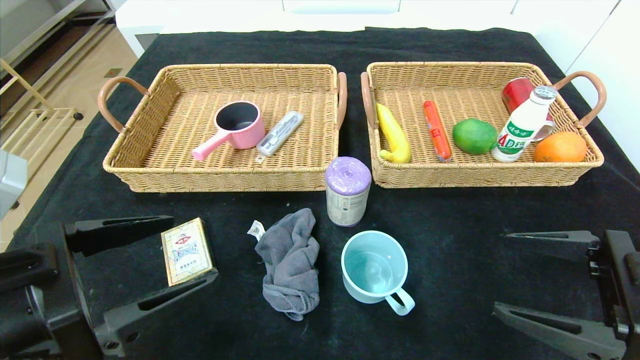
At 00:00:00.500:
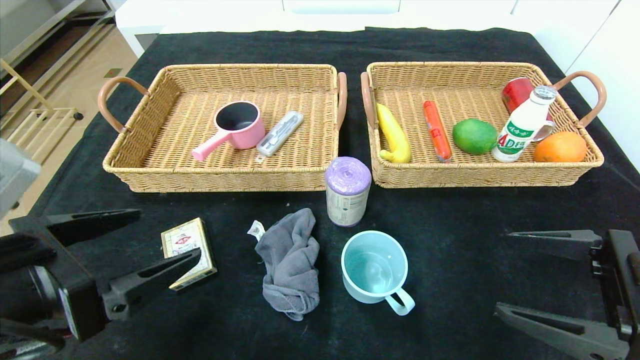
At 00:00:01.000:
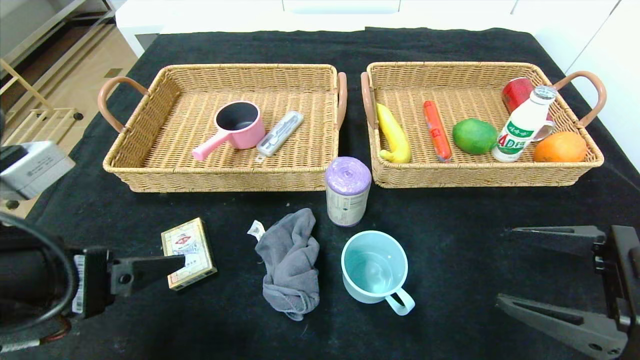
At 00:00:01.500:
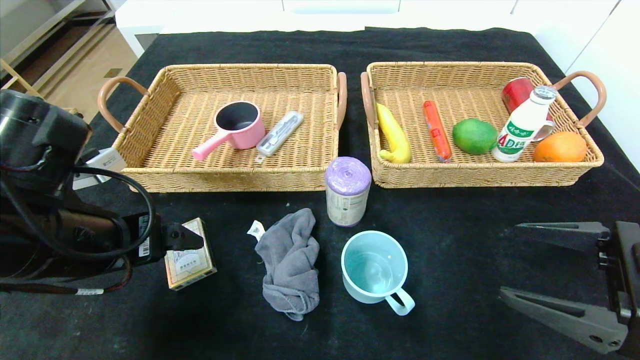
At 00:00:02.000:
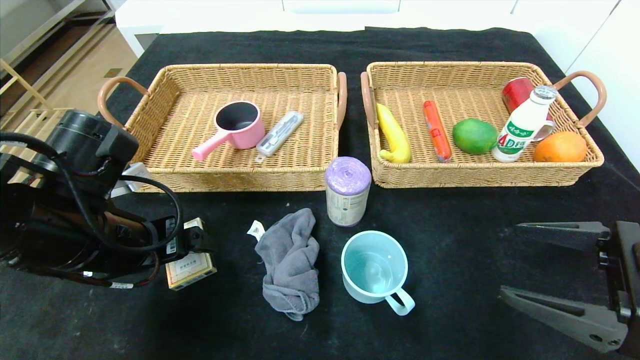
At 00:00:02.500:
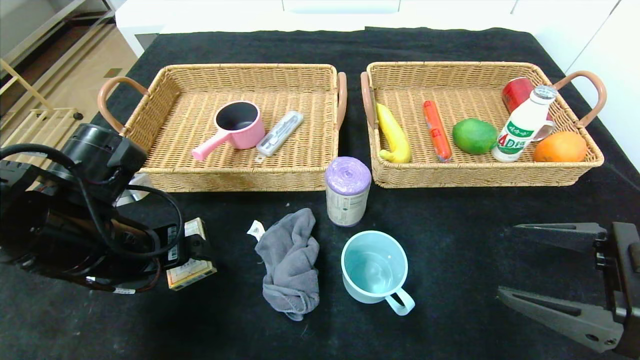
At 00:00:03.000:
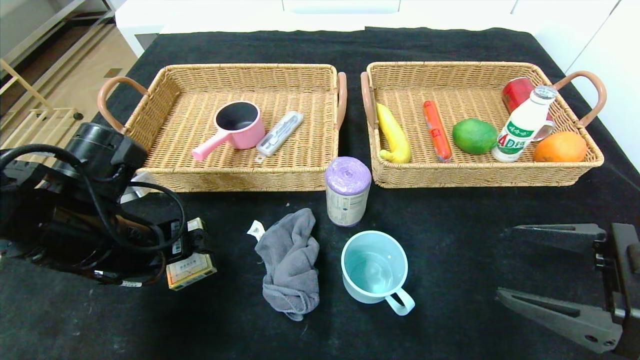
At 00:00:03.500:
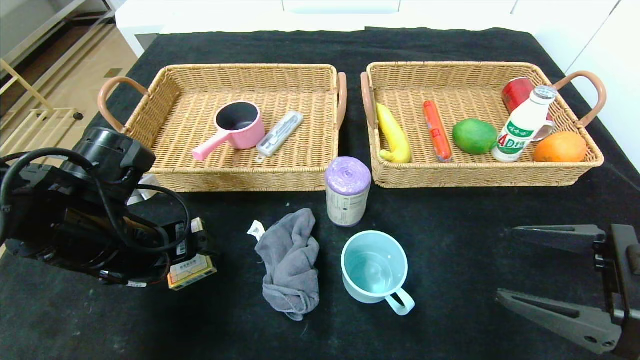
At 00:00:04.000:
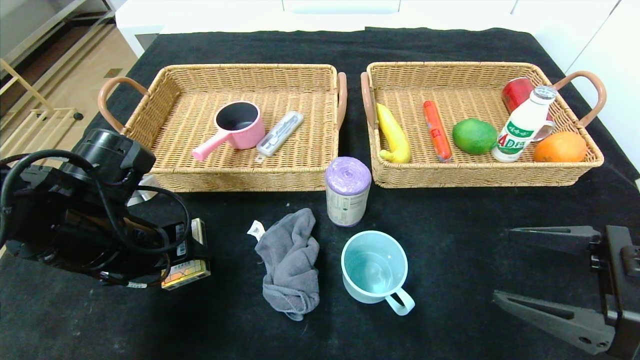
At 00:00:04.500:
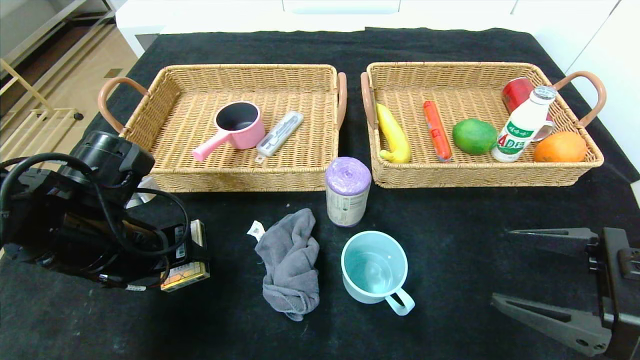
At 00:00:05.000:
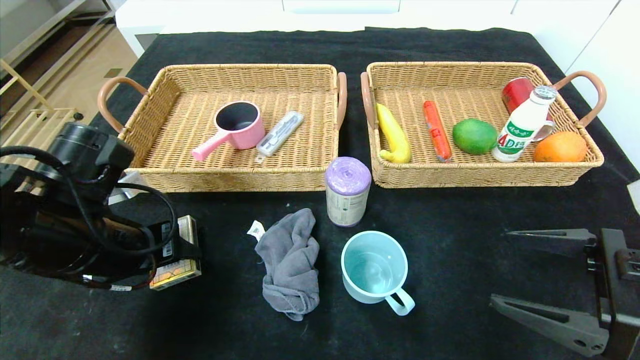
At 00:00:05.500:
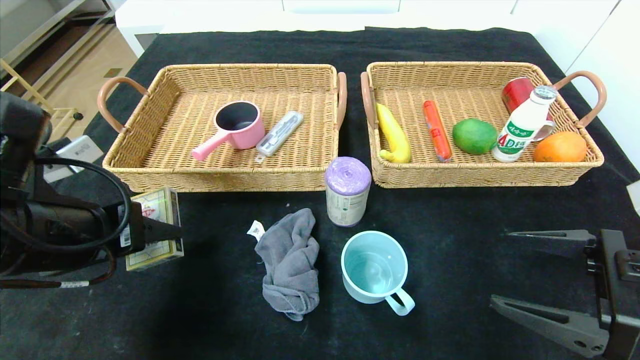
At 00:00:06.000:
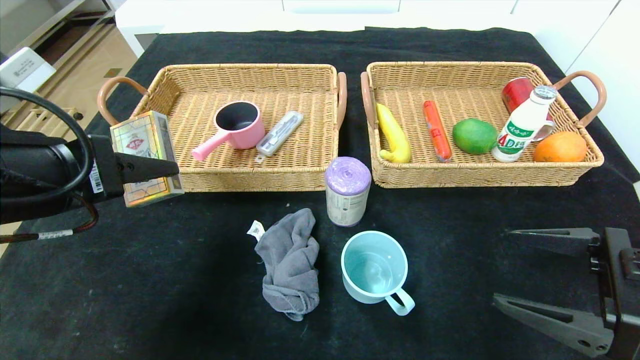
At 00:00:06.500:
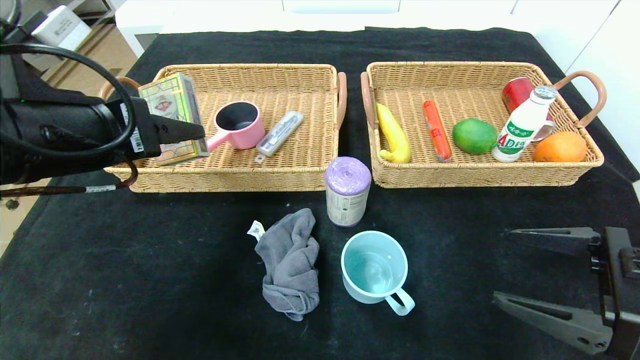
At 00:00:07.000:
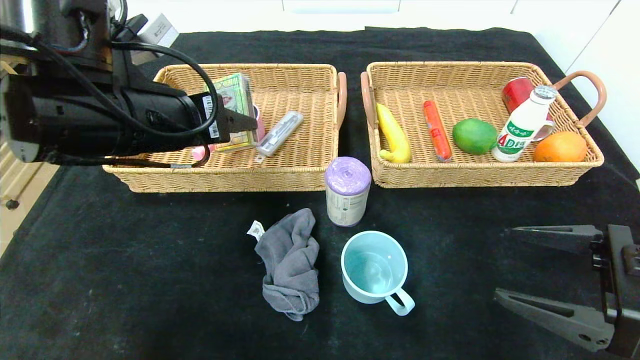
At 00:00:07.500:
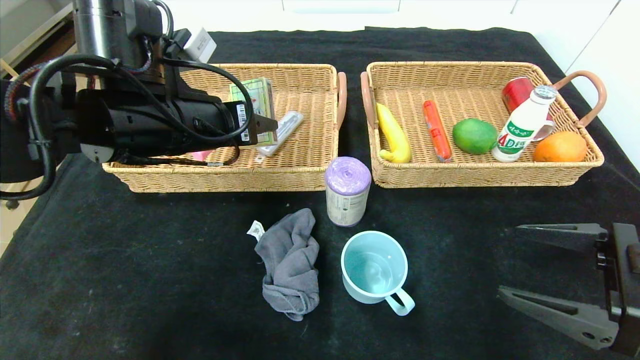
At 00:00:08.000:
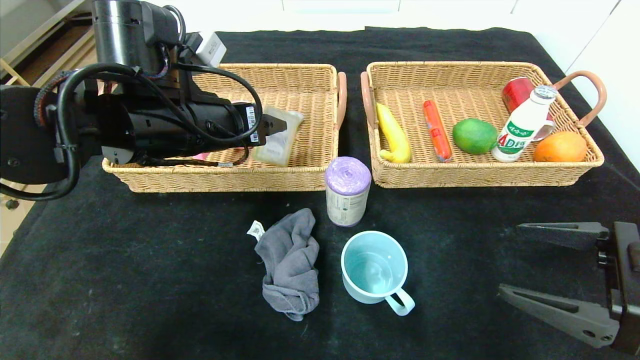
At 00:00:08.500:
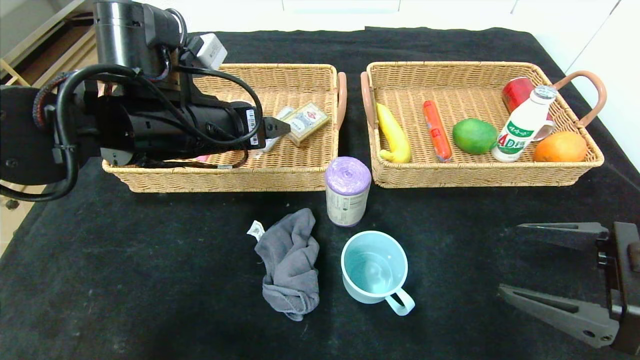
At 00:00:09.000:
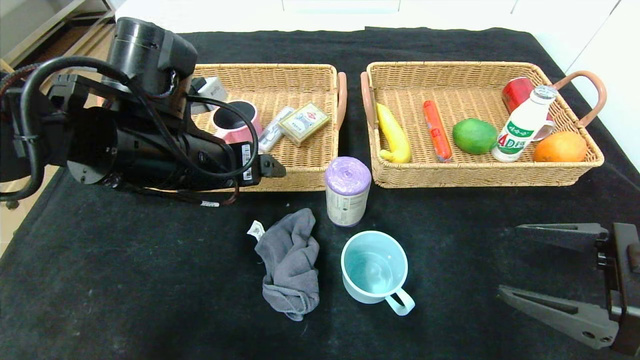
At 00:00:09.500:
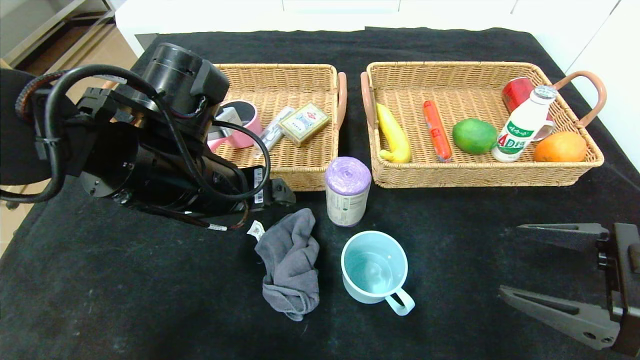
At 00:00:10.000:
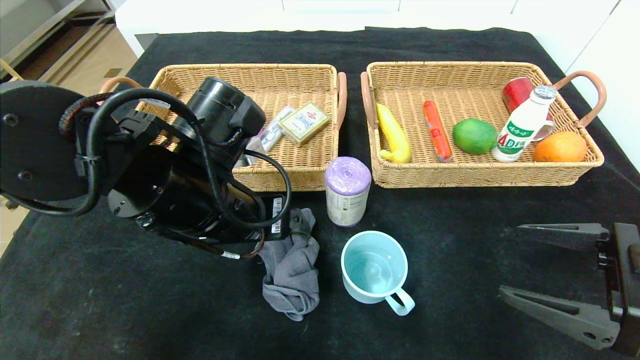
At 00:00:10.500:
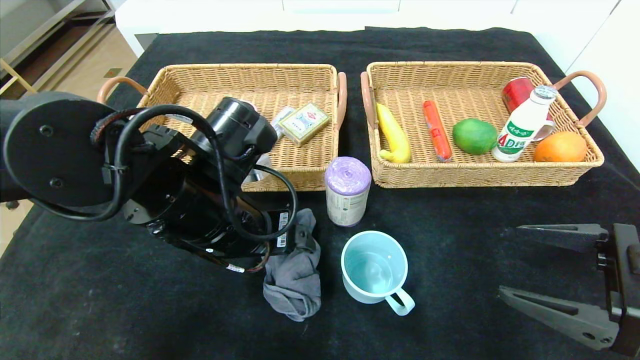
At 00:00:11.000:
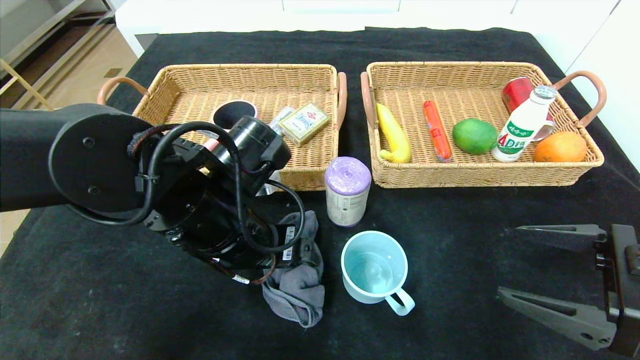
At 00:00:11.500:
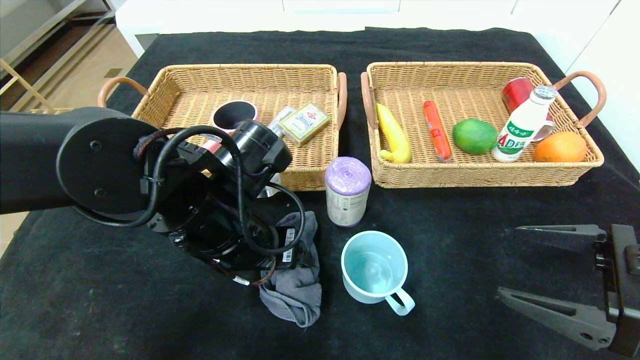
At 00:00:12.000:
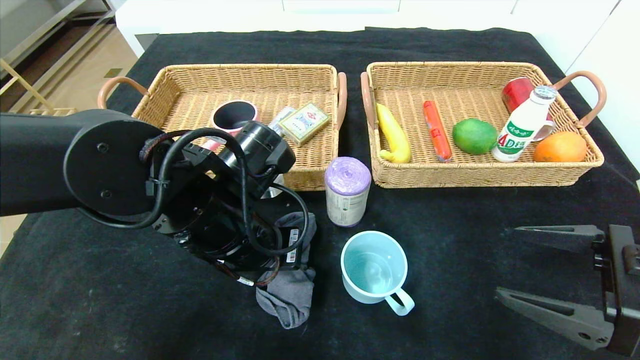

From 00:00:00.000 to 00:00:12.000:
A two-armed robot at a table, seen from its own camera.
Step, from 00:00:00.000 to 00:00:09.500: Pick up the playing cards and put it in the left basket.
From 00:00:00.000 to 00:00:02.000: The left gripper is displaced forward by roughly 10 cm.
From 00:00:02.000 to 00:00:04.000: The left gripper closes its fingers.
From 00:00:04.000 to 00:00:06.000: The left gripper moves upward and backward, some 10 cm.
From 00:00:06.000 to 00:00:08.000: The left gripper travels forward and to the right by roughly 15 cm.
From 00:00:08.000 to 00:00:10.000: The left gripper moves backward and downward, some 5 cm.
From 00:00:10.000 to 00:00:12.000: The left gripper closes.

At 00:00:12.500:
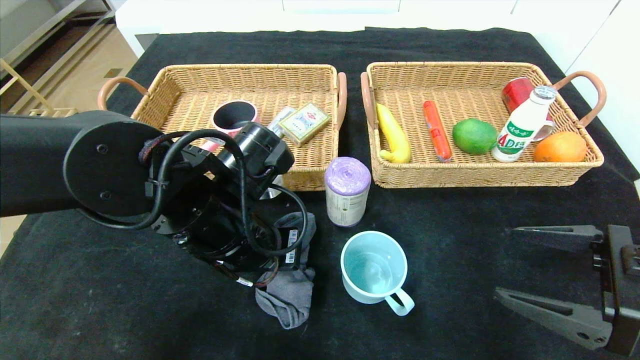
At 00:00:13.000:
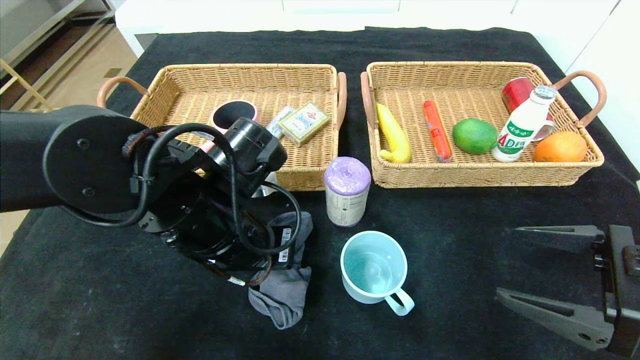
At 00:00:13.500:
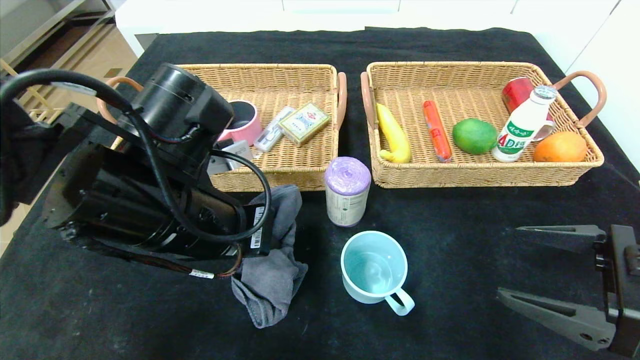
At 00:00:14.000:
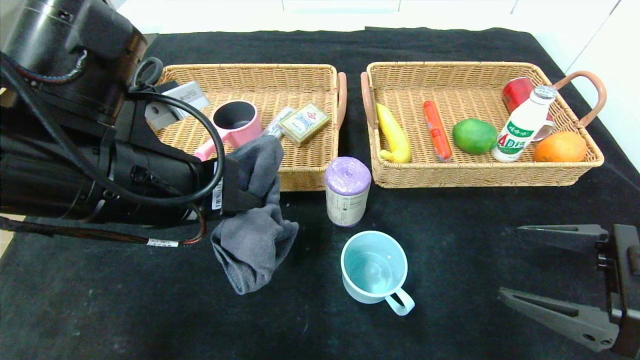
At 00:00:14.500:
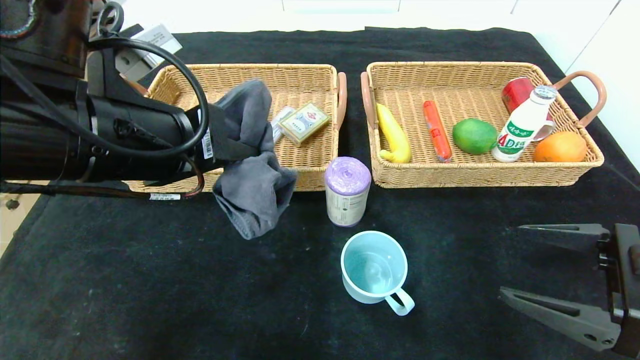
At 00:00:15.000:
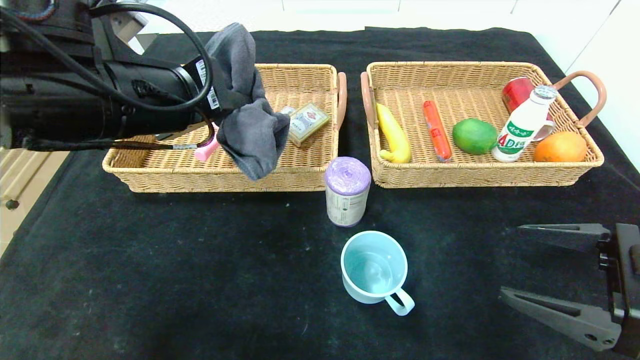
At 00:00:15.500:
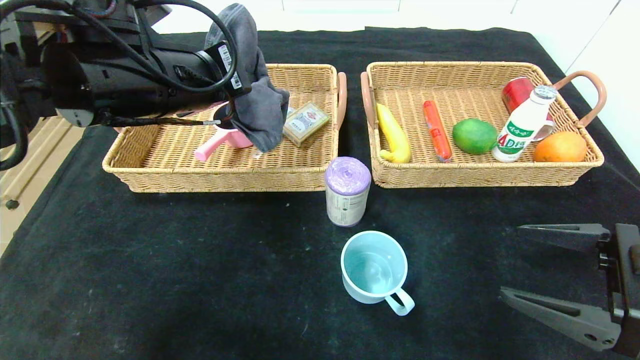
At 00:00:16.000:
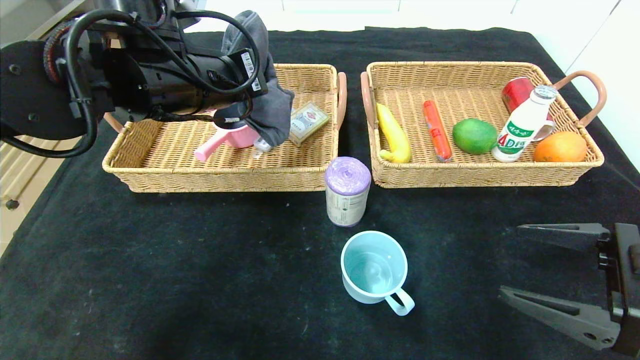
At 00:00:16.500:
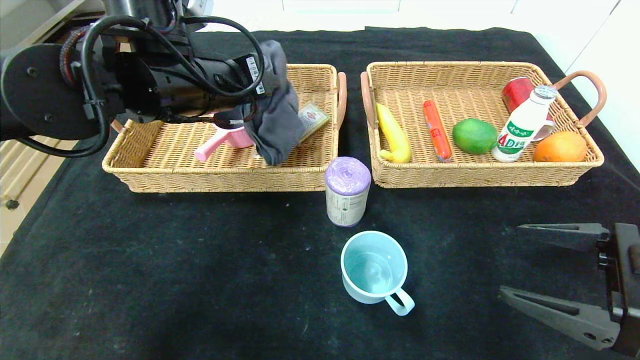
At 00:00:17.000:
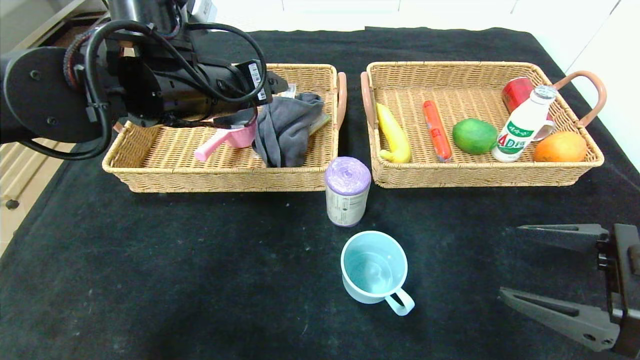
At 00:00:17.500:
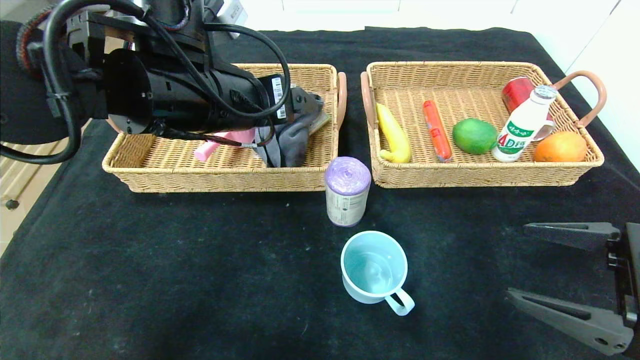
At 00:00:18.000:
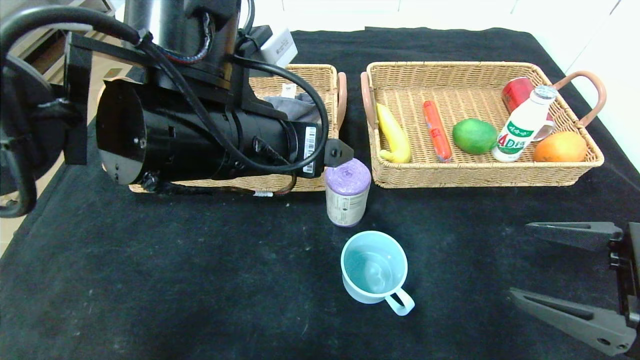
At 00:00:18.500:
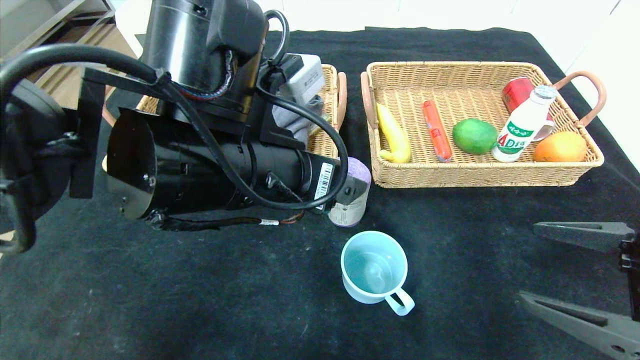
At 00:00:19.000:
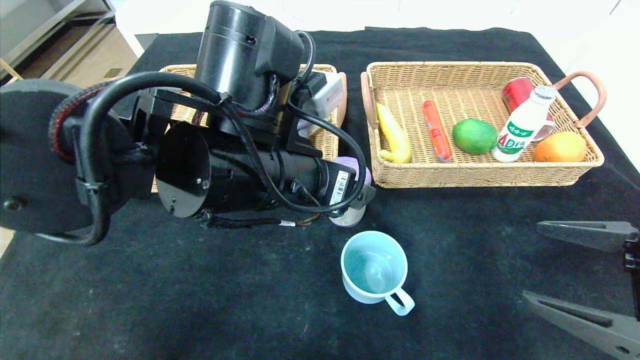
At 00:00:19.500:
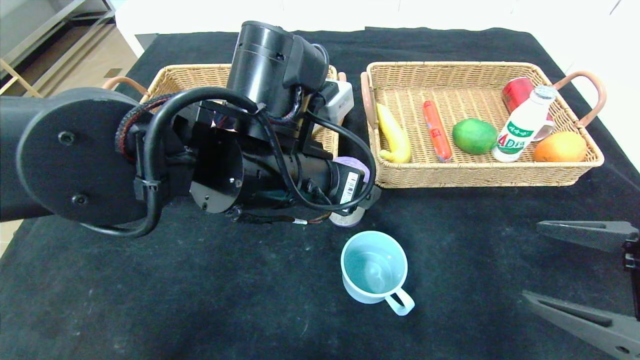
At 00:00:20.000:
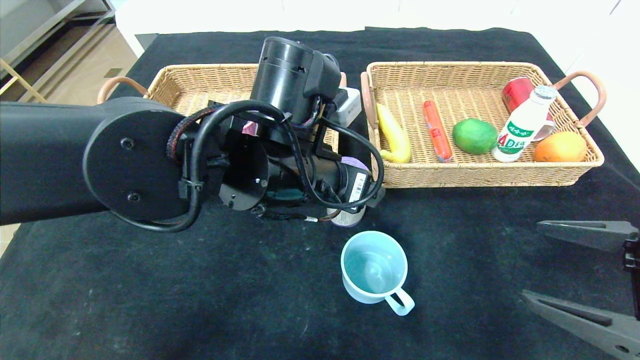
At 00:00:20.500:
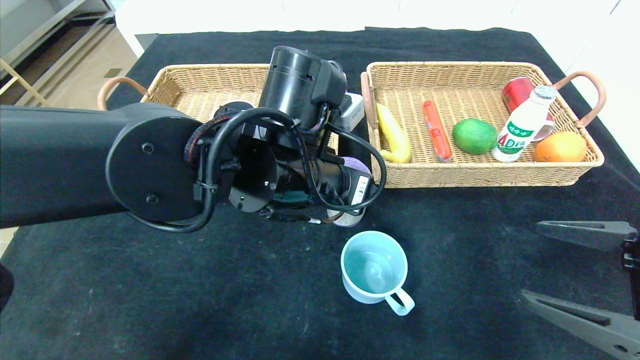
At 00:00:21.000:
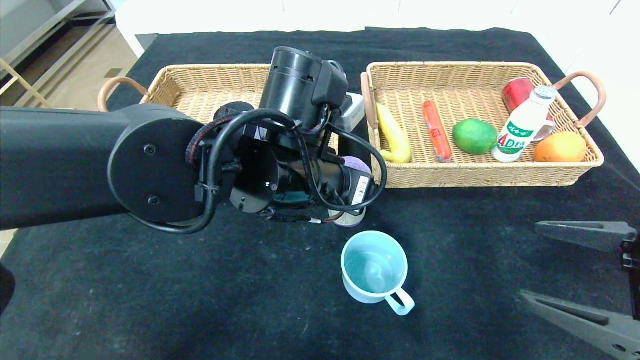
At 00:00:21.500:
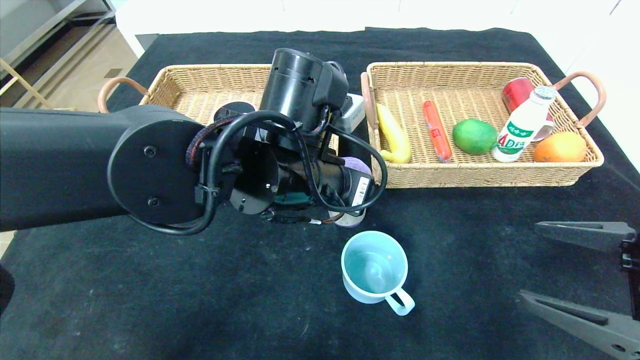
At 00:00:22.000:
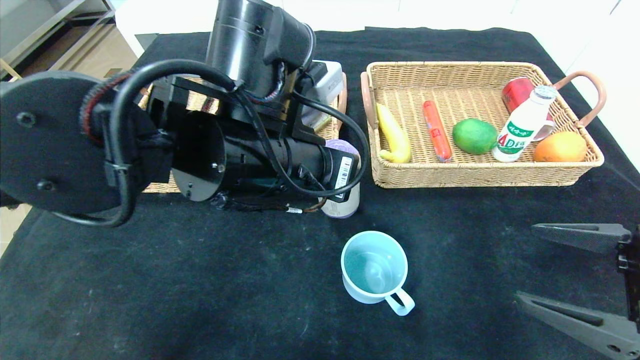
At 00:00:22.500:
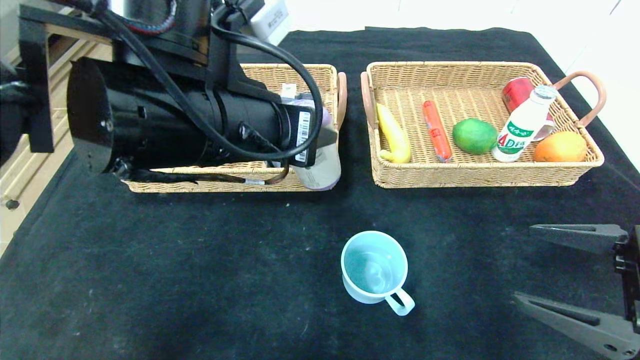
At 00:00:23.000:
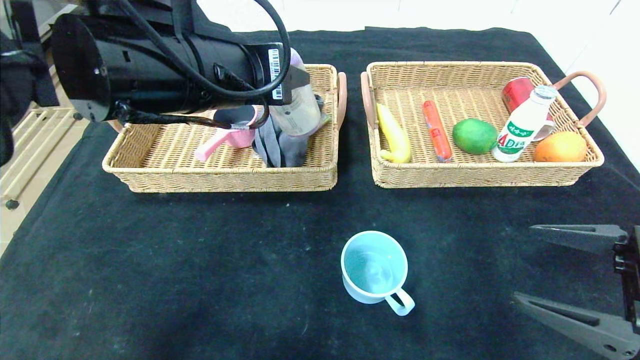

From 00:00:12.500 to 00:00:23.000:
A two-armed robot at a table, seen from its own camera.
Step, from 00:00:12.500 to 00:00:18.500: Pick up the gray towel and put it in the left basket.
From 00:00:12.500 to 00:00:14.500: The left gripper is displaced upward and to the left by roughly 15 cm.
From 00:00:14.500 to 00:00:16.500: The left gripper heads forward, covering approximately 10 cm, and opens up.
From 00:00:16.500 to 00:00:19.000: The left gripper shifts approximately 15 cm backward, to the right and downward, and opens.
From 00:00:19.000 to 00:00:21.000: The left gripper closes up.
From 00:00:21.000 to 00:00:23.000: The left gripper heads upward and to the left, covering roughly 10 cm.
